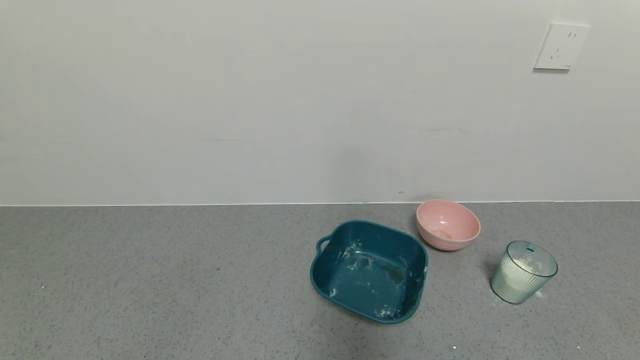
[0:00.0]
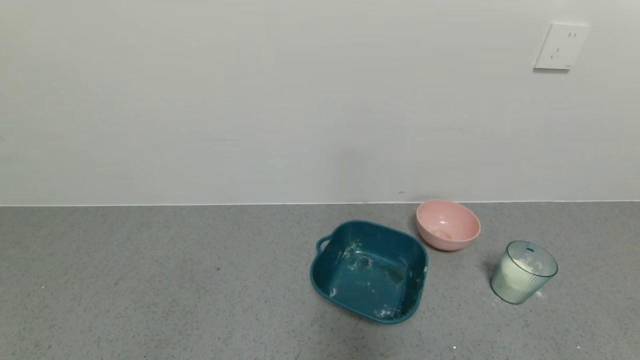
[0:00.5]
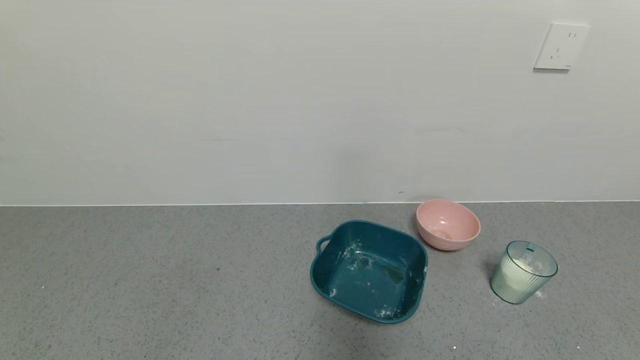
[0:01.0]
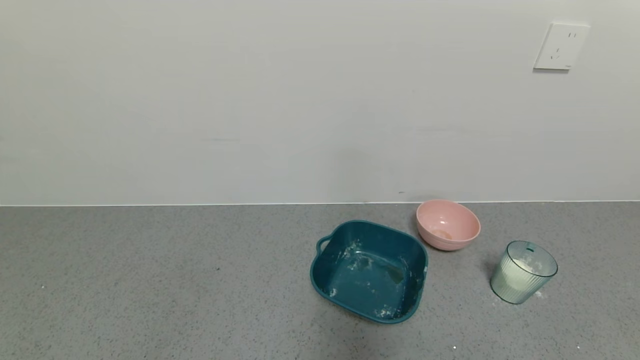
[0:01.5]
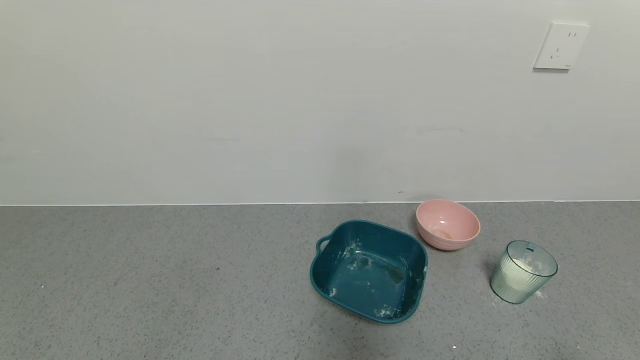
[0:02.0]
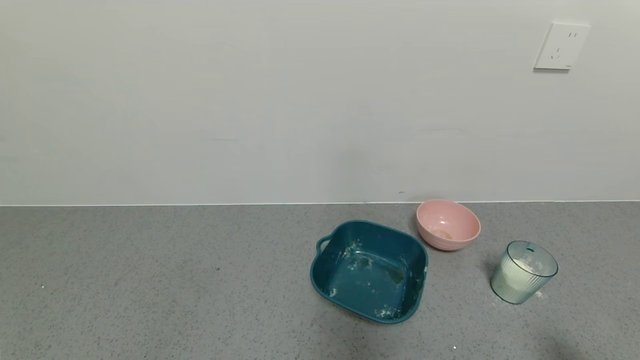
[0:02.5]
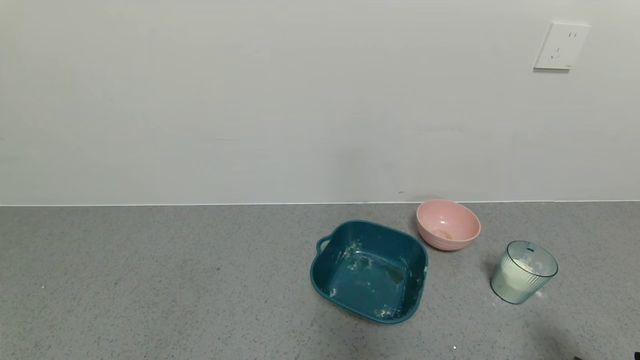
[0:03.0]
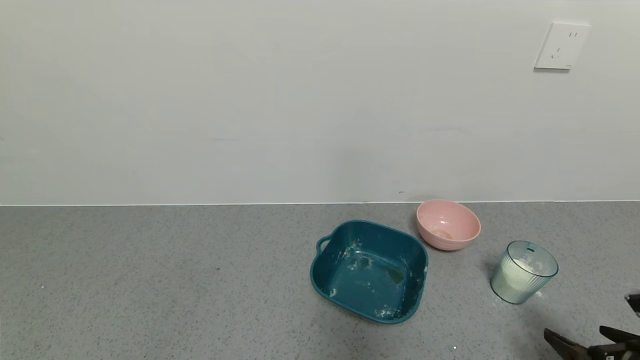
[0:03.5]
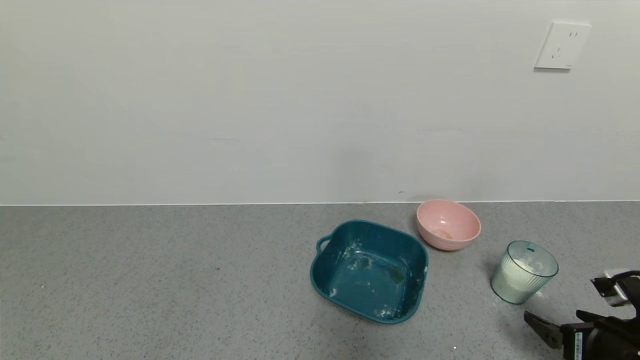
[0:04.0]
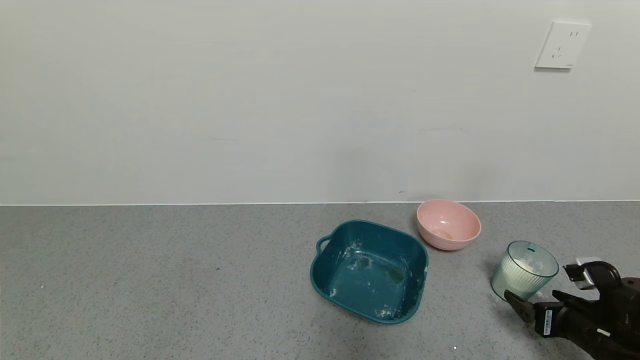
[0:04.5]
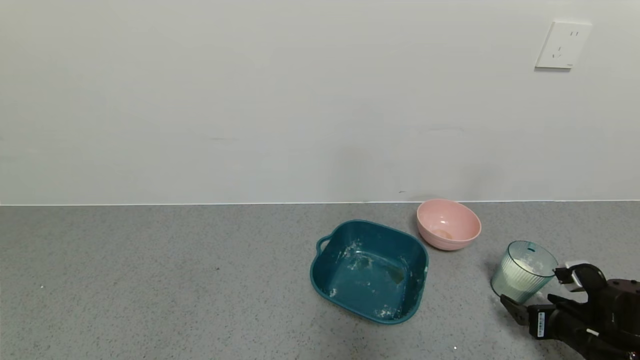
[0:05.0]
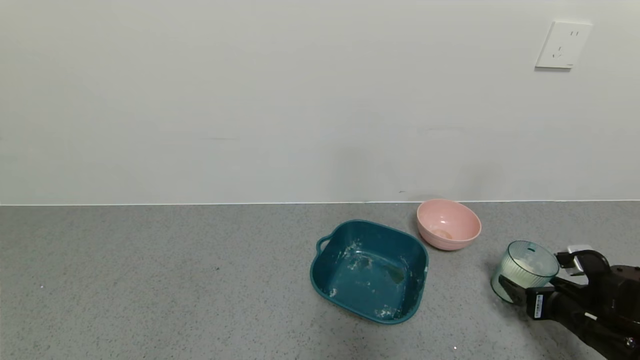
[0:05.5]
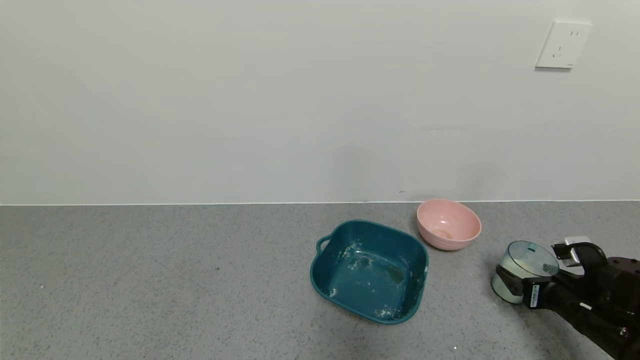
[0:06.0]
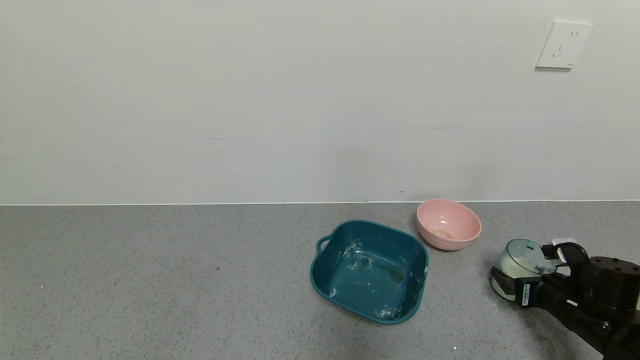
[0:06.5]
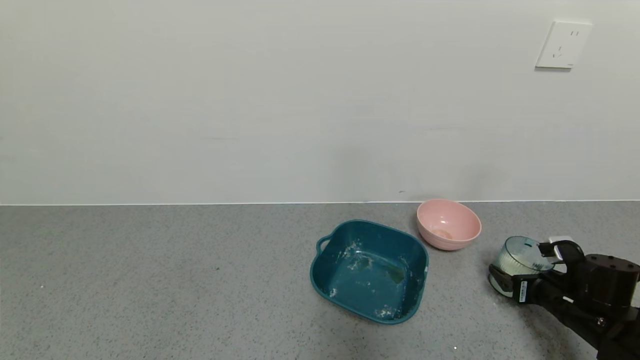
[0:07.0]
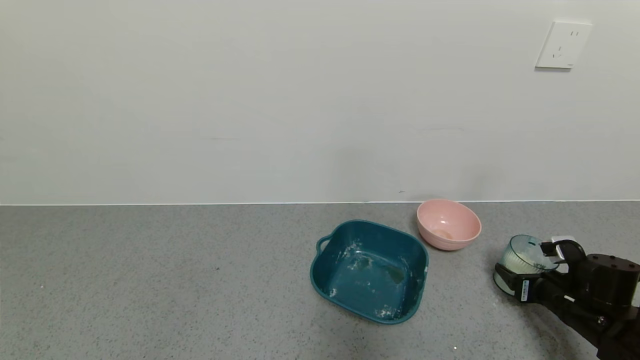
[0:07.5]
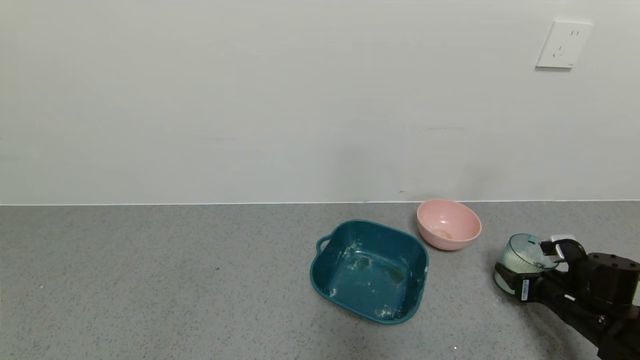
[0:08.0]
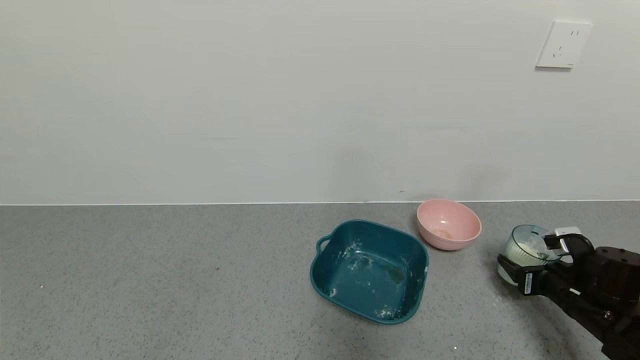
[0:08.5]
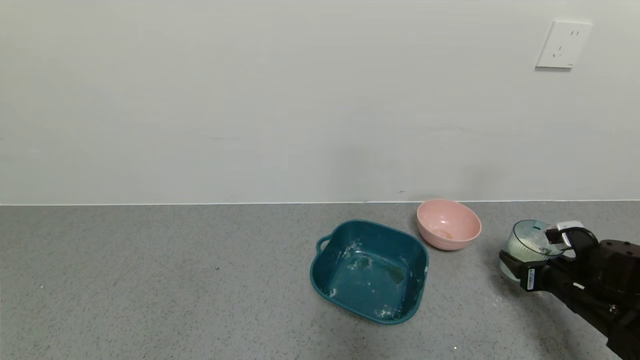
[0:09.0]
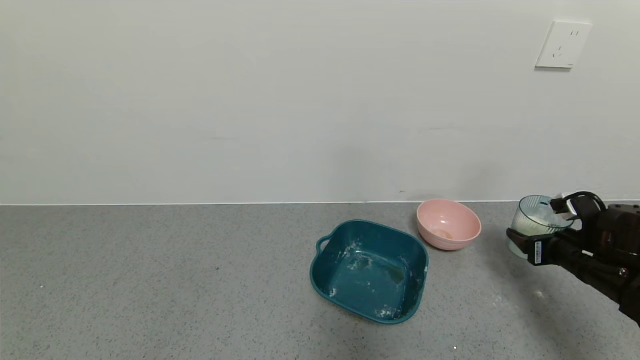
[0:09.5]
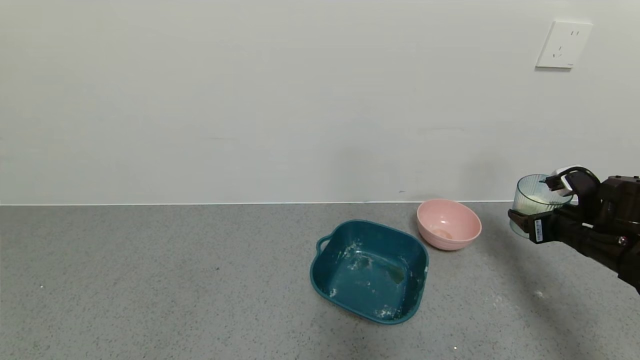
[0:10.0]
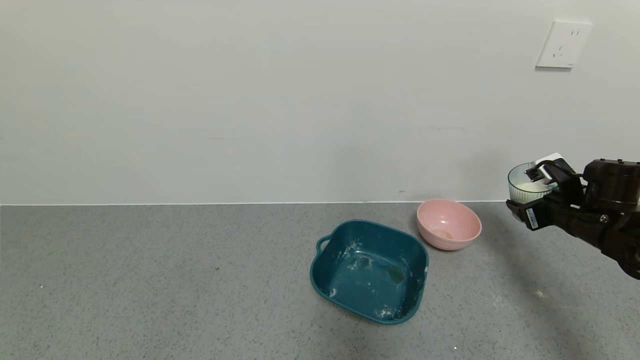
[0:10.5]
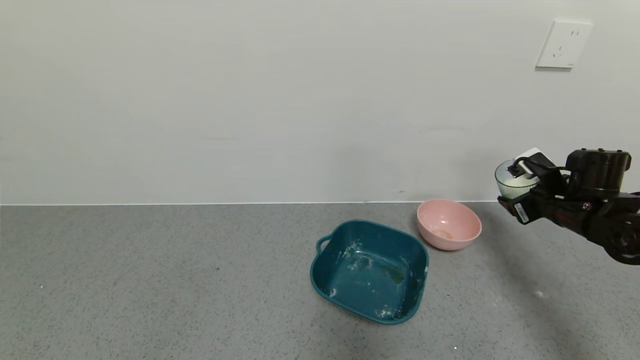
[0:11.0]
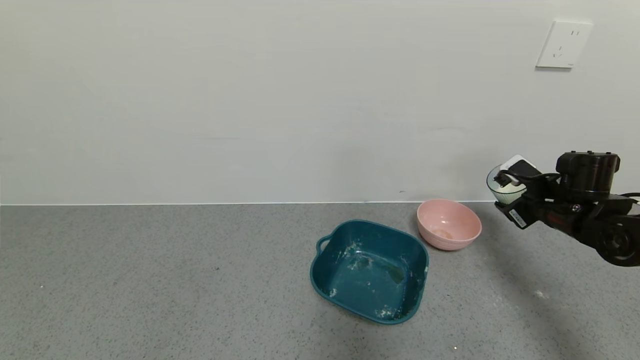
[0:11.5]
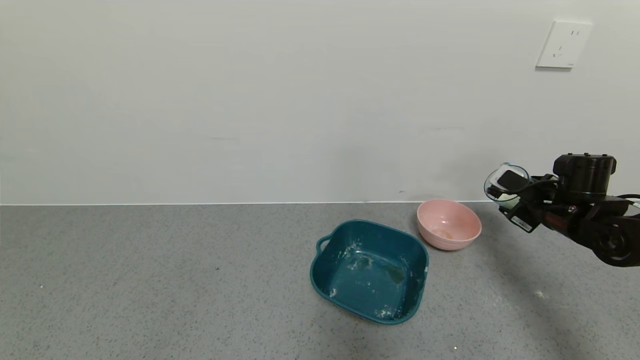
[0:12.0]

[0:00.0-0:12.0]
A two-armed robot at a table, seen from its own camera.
Task of the whole recording: use a gripper to pick up the cup and pour the powder into a bowl or tray.
Step, 0:00.0 to 0:07.0: Grasp the glass of powder with the right gripper.
0:02.0 to 0:04.0: The right gripper shifts about 15 cm forward.
0:04.0 to 0:06.0: The right gripper shifts some 10 cm forward.
0:06.0 to 0:08.0: The right gripper closes its fingers.
0:08.0 to 0:10.0: The right gripper is displaced upward by approximately 10 cm.
0:10.0 to 0:12.0: The right gripper shifts by approximately 5 cm.

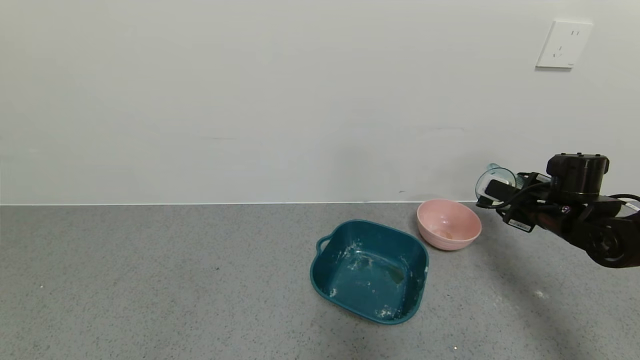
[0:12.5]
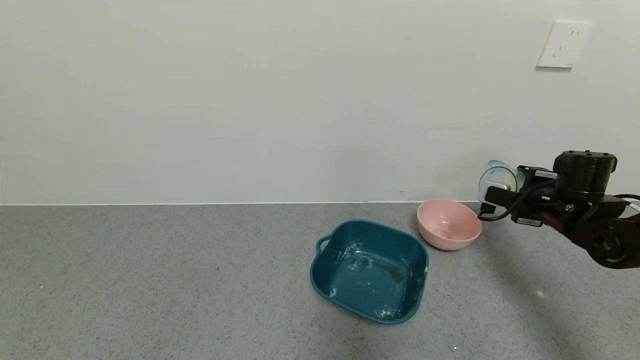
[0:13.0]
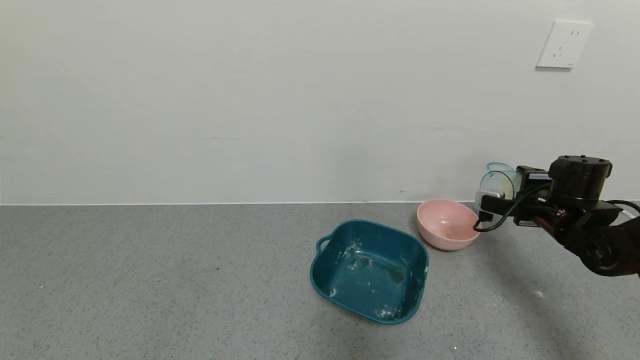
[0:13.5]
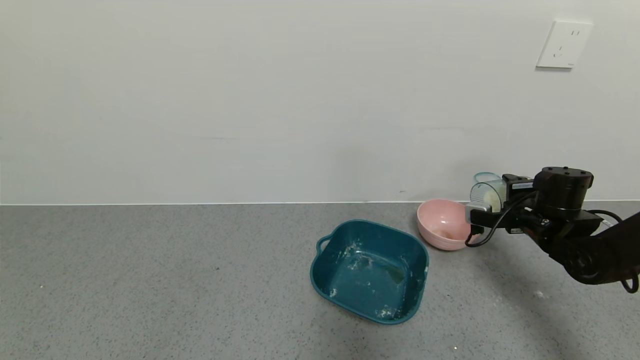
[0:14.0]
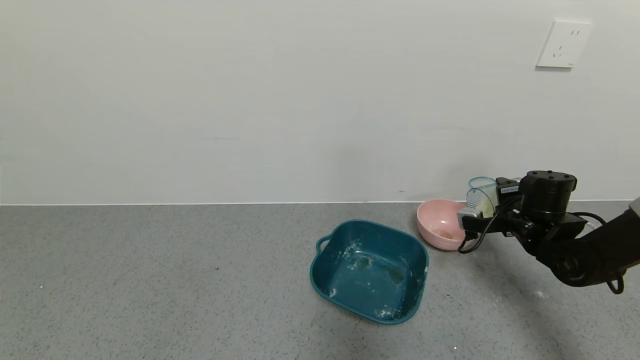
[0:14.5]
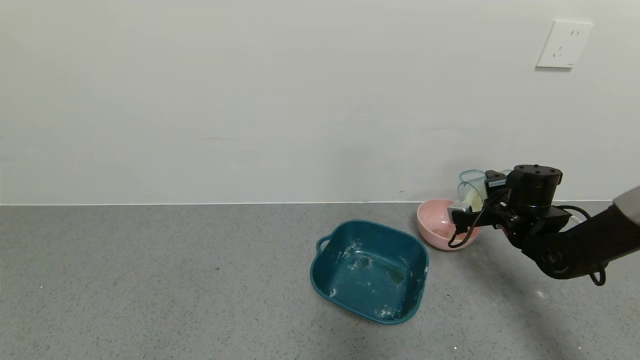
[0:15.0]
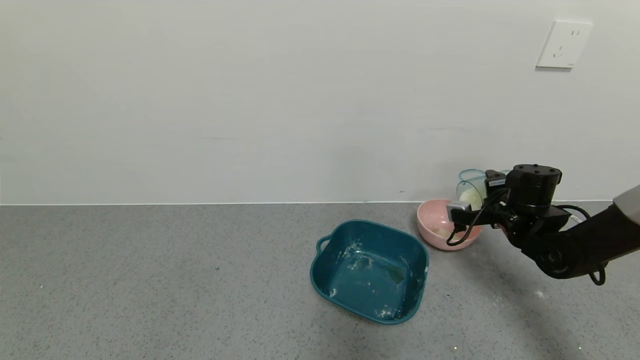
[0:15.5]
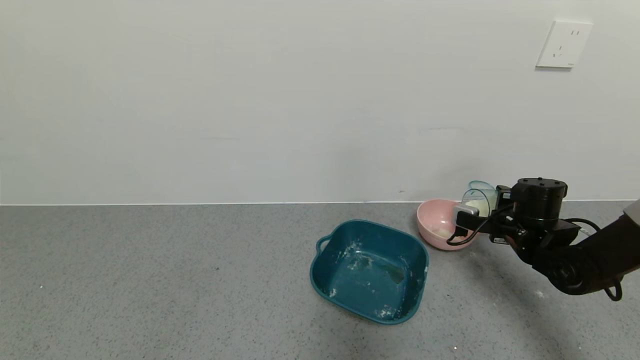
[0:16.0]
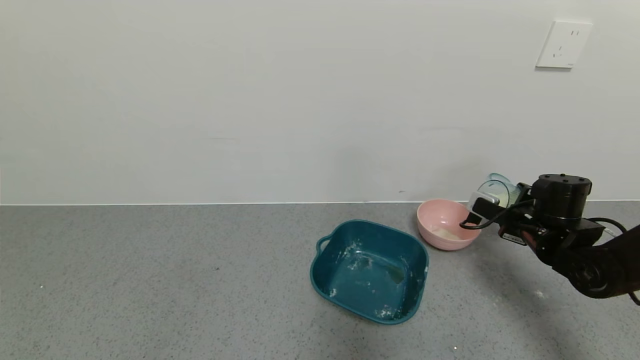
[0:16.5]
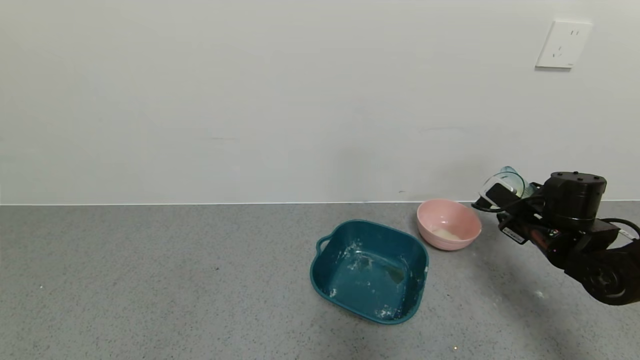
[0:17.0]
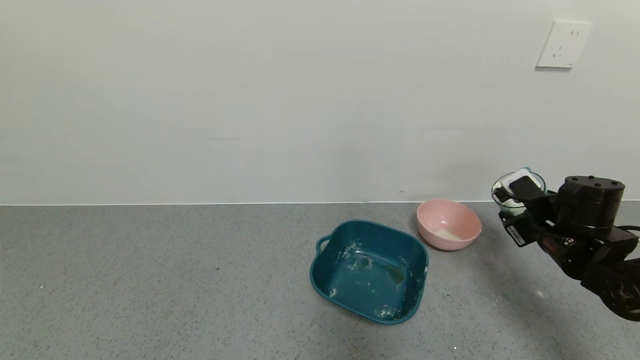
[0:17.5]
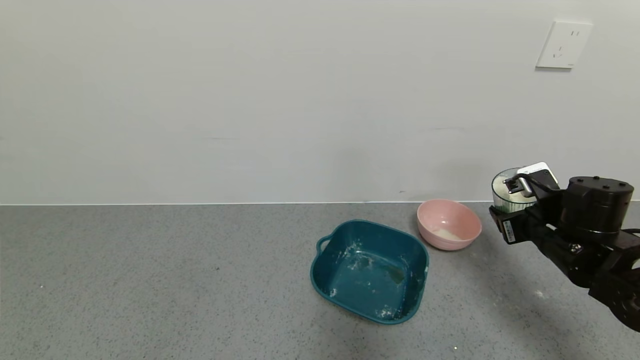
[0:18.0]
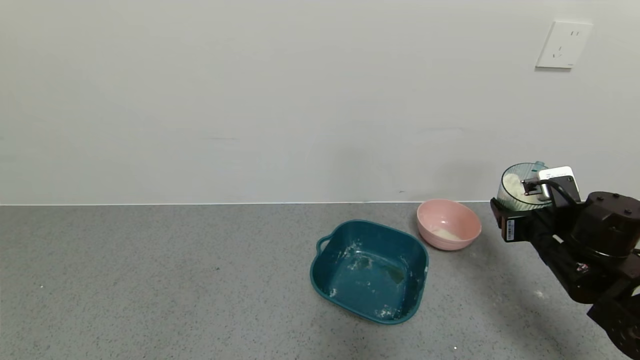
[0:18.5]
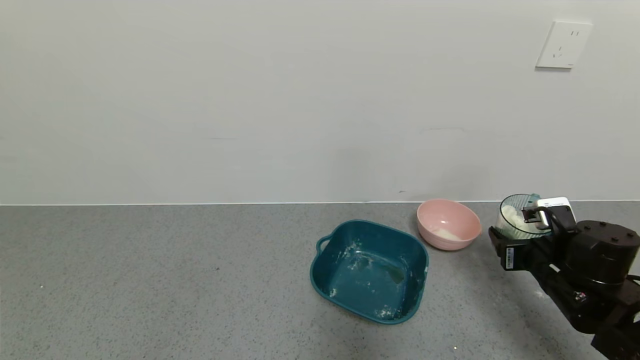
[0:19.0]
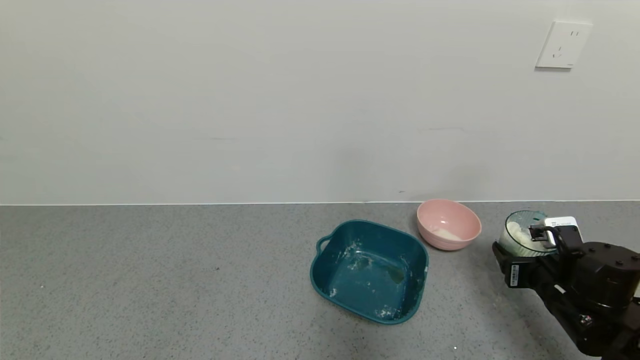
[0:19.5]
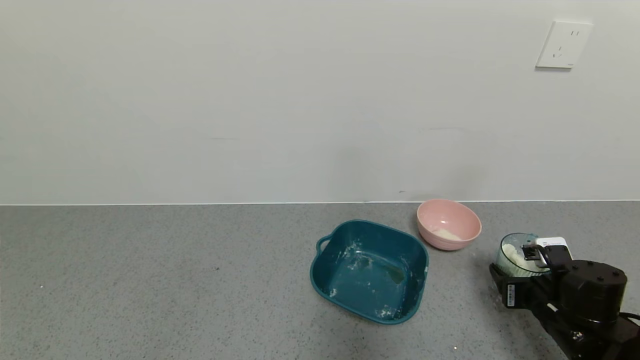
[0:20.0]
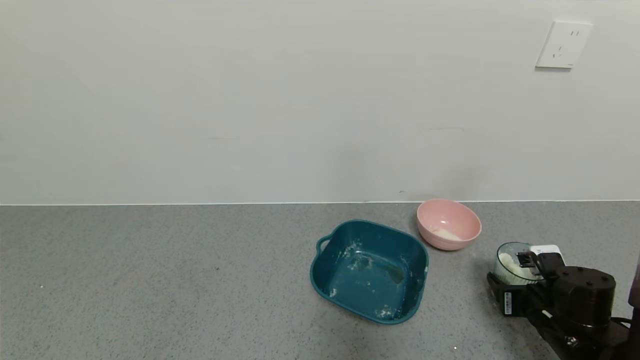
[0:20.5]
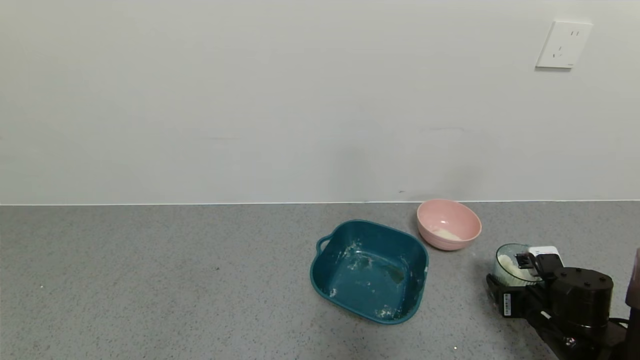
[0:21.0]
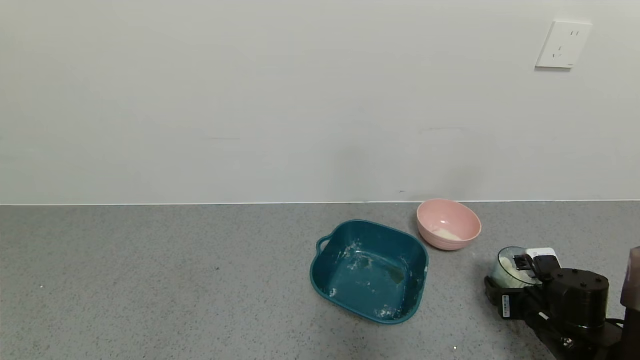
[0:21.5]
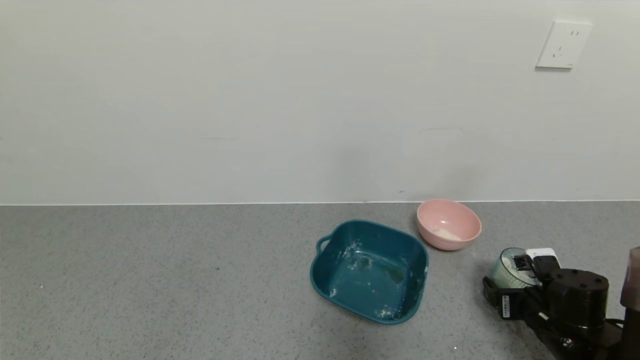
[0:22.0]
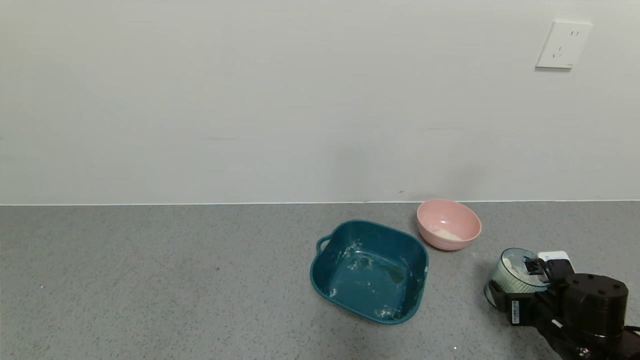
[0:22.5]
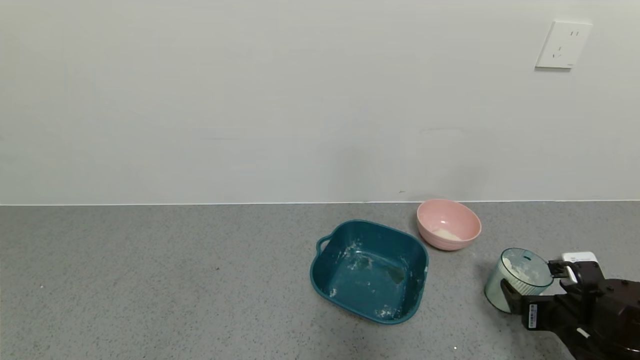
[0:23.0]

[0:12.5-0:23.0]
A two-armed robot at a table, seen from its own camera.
Task of the whole recording: use a gripper to pick up the cup and pour the powder into a bowl or tray.
Step, 0:12.5 to 0:15.5: Pour the powder into the pink bowl with the right gripper.
0:16.5 to 0:19.0: The right gripper heads backward, covering approximately 10 cm.
0:19.0 to 0:21.0: The right gripper goes roughly 5 cm downward.
0:21.0 to 0:23.0: The right gripper changes place by some 5 cm, and opens.
